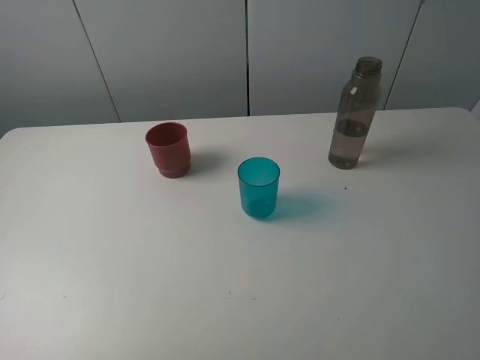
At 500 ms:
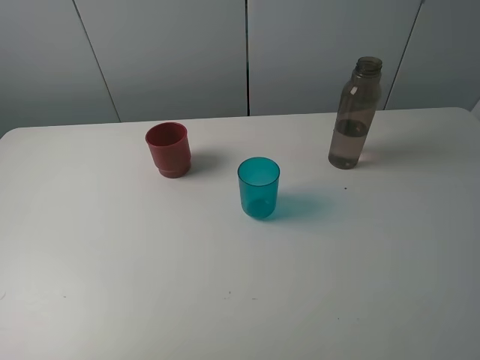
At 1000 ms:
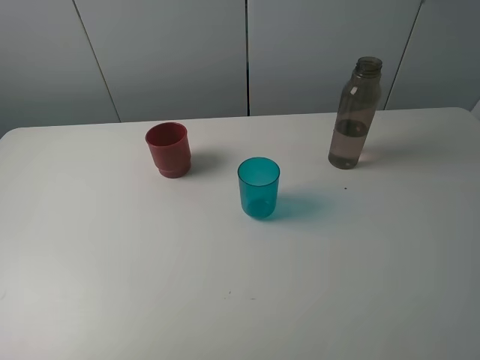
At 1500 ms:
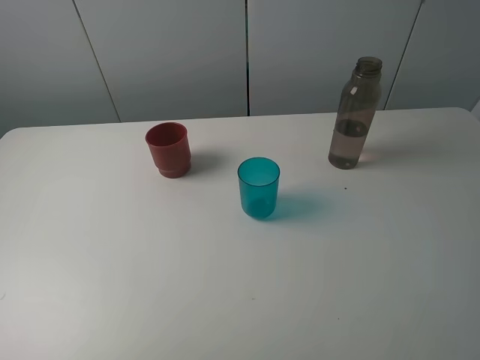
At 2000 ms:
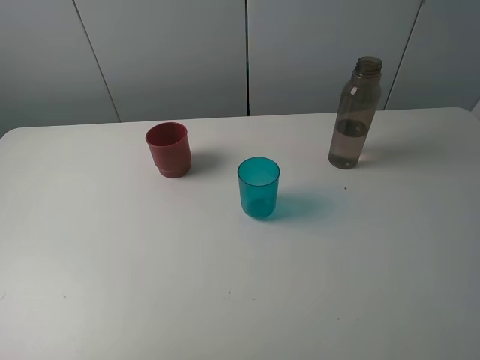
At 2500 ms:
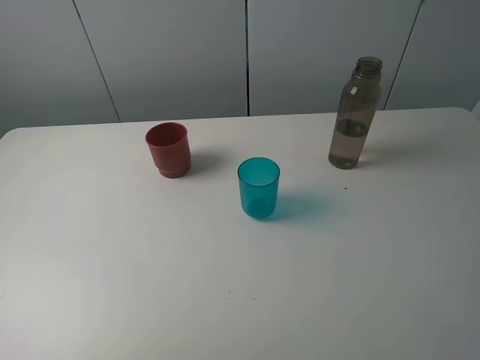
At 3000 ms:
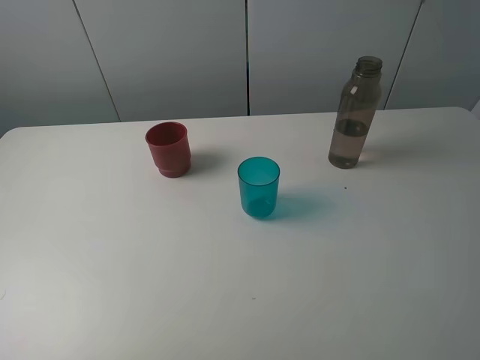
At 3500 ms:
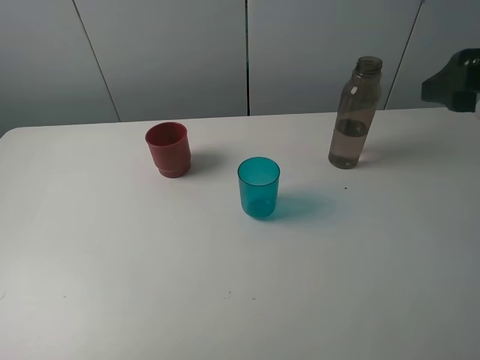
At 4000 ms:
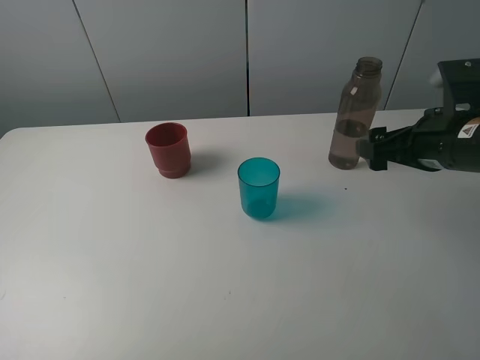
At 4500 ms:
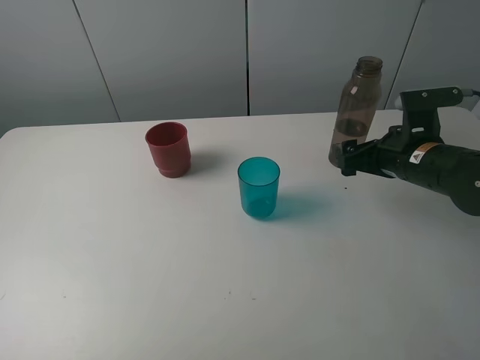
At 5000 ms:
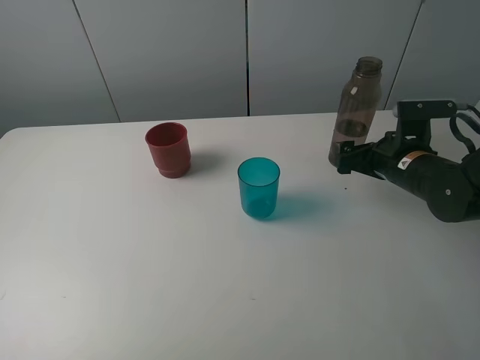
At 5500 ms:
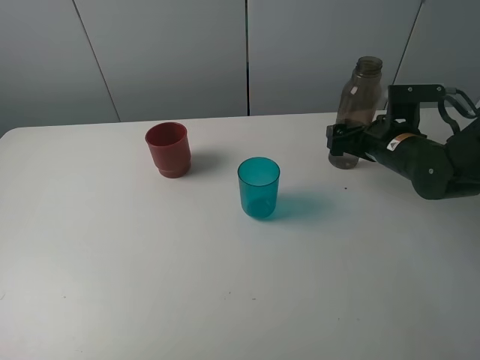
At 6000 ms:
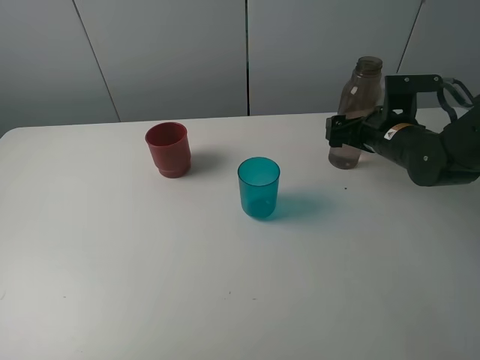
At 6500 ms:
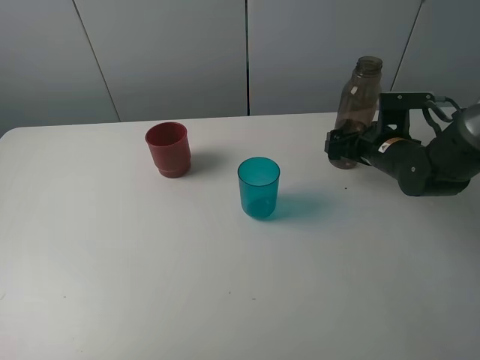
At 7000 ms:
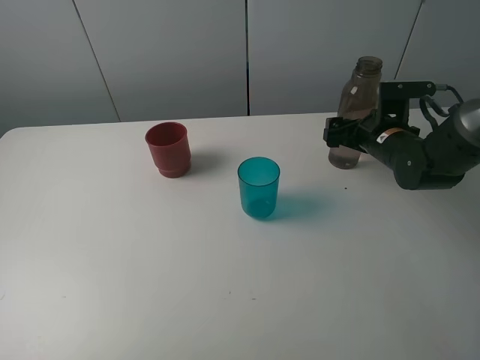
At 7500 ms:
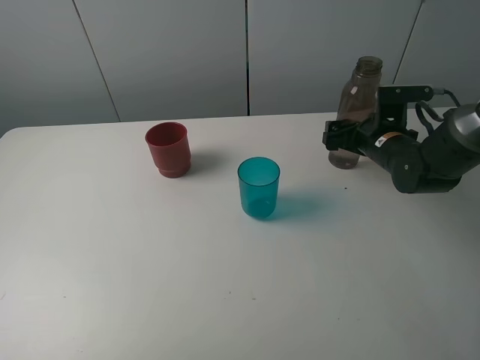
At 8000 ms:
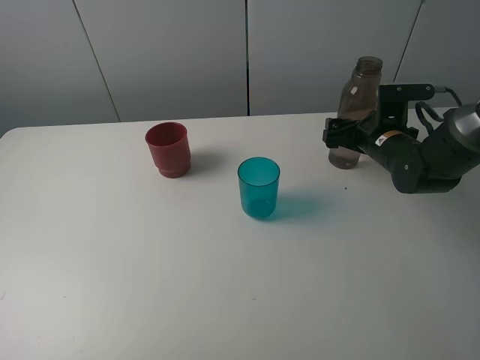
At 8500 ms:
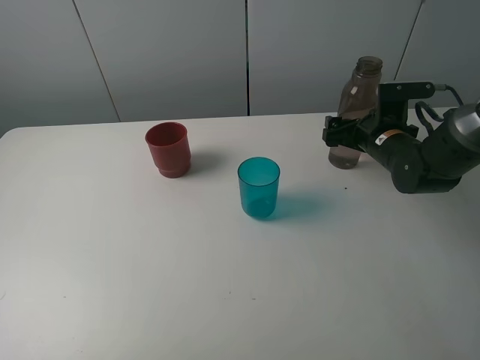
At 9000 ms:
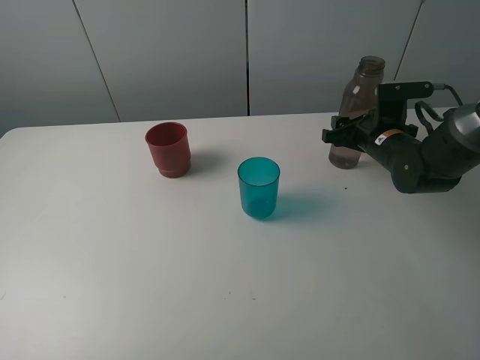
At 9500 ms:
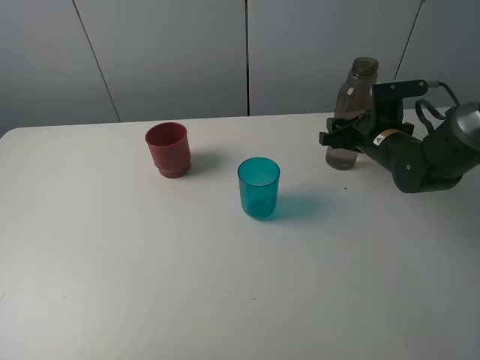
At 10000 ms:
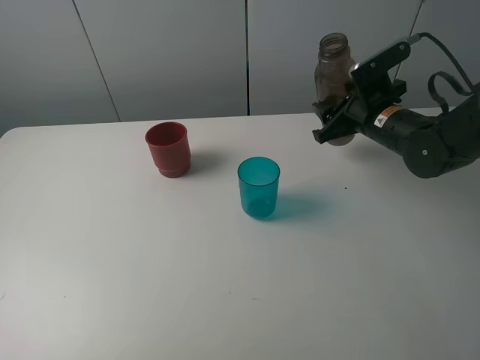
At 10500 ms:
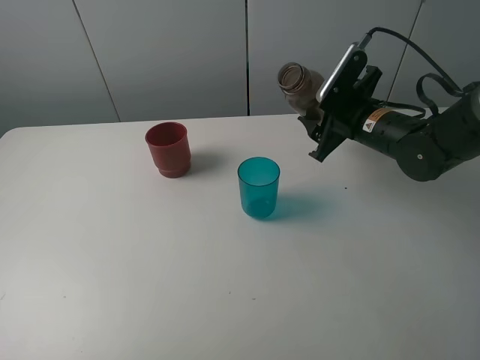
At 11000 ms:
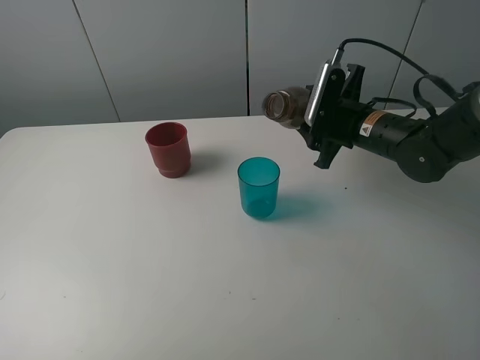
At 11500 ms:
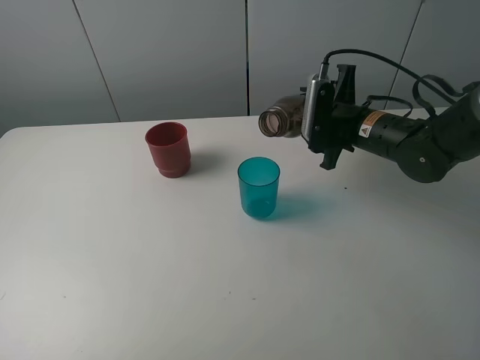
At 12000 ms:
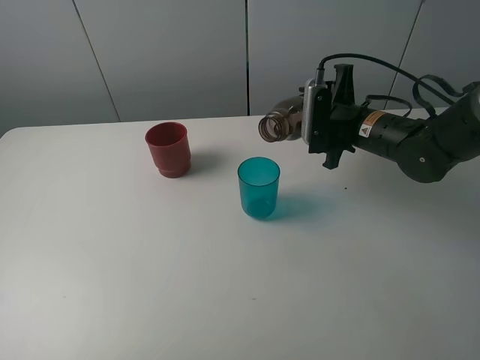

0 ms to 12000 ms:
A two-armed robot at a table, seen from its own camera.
Task of the whole recording: pick up the bottle and pour water into the cup, then pick up the cup containing water and pour it into another cup.
Step, 0 ms to 8500 ms: Grasp the brown bottle with the right gripper.
0 ms to 2000 ms: Both grippers stay put.
2000 ms to 4000 ms: The right gripper moves forward and downward, some 25 cm.
4000 ms to 6000 ms: The right gripper shifts about 10 cm forward and downward.
6000 ms to 8000 ms: There are only small adjustments of the grippers.
8000 ms to 10000 ms: The right gripper shifts by about 5 cm, and closes up.

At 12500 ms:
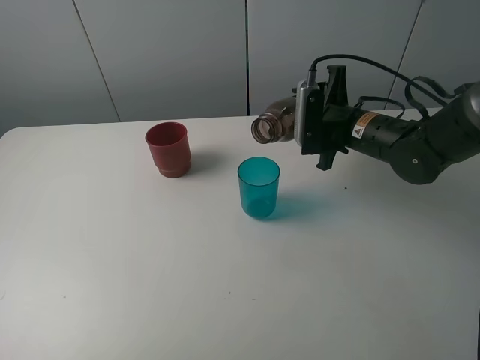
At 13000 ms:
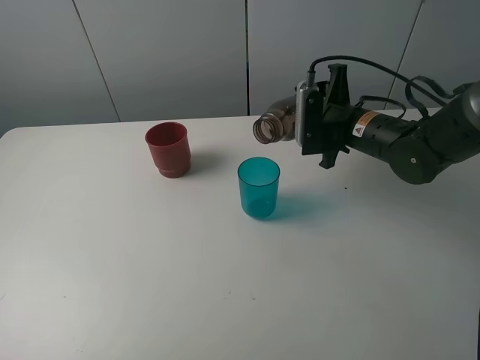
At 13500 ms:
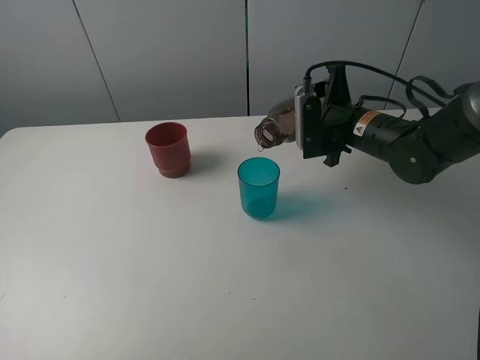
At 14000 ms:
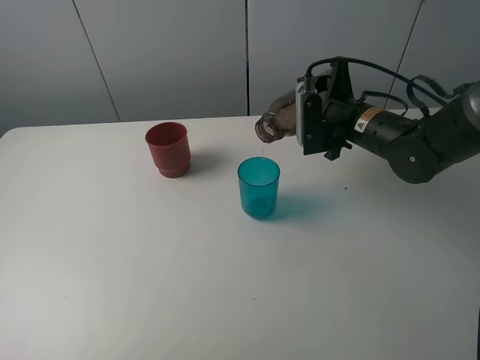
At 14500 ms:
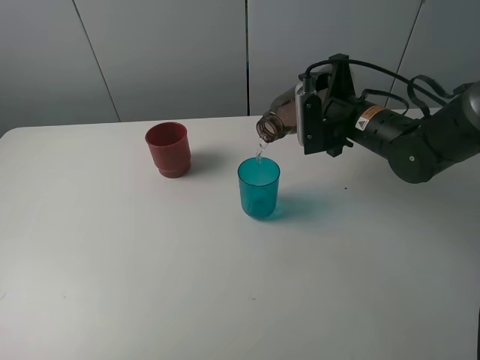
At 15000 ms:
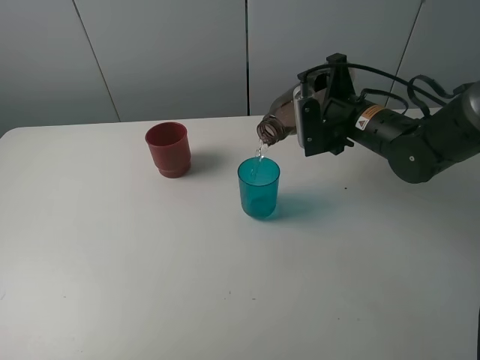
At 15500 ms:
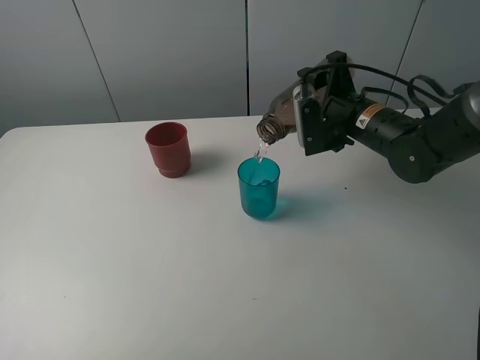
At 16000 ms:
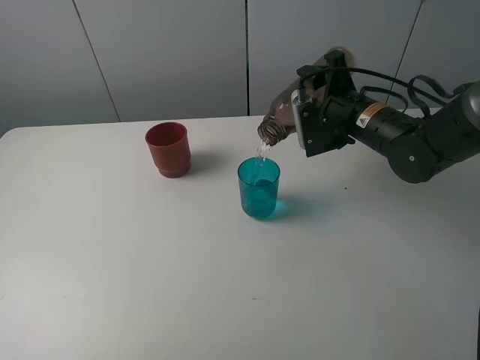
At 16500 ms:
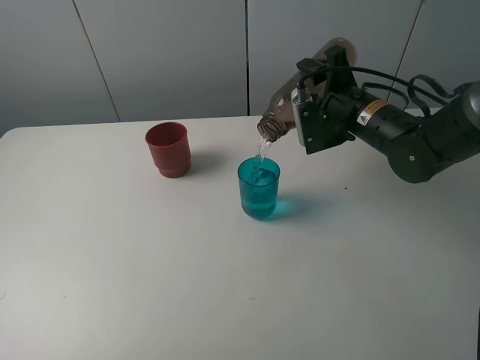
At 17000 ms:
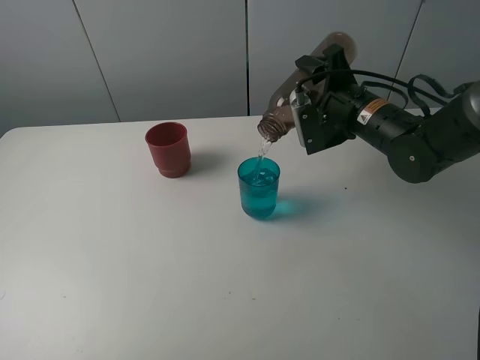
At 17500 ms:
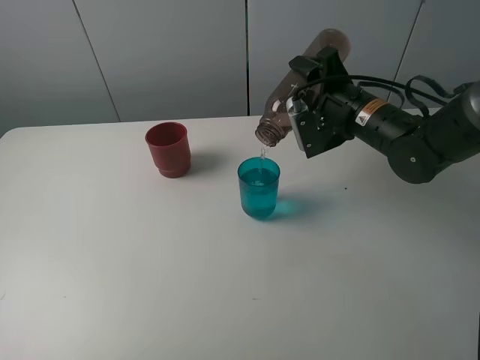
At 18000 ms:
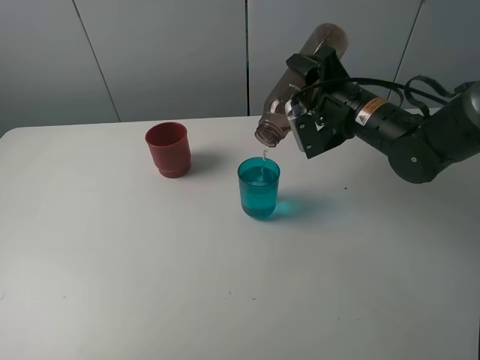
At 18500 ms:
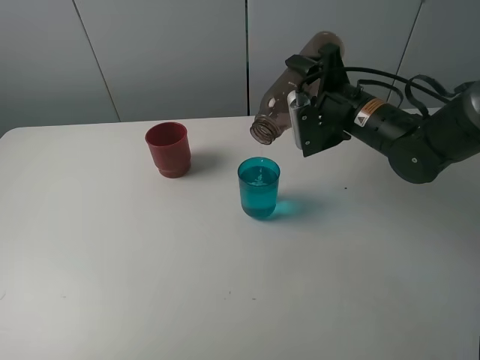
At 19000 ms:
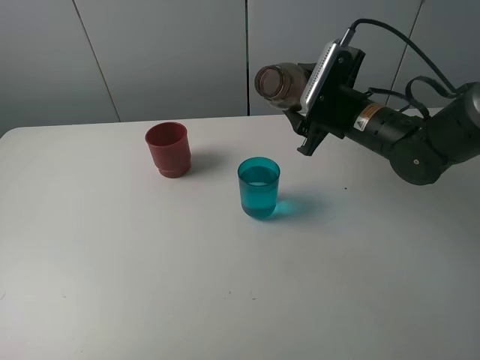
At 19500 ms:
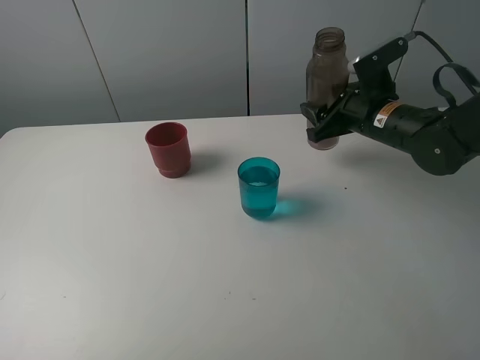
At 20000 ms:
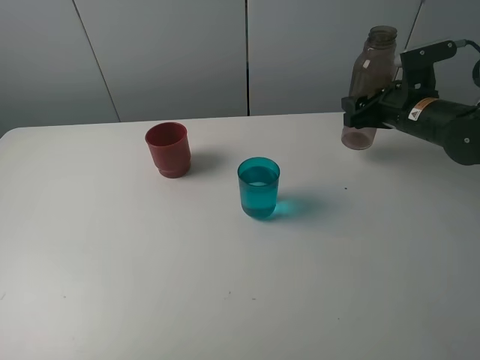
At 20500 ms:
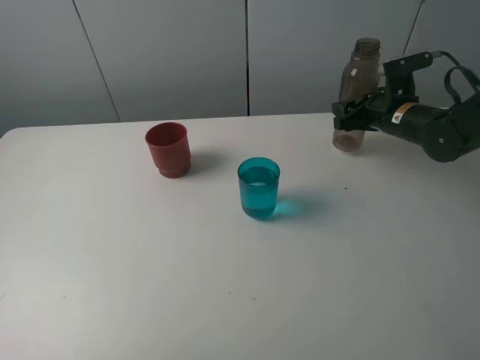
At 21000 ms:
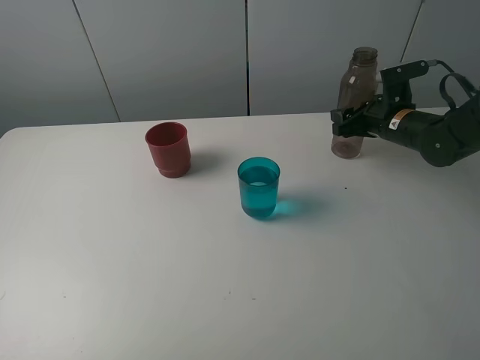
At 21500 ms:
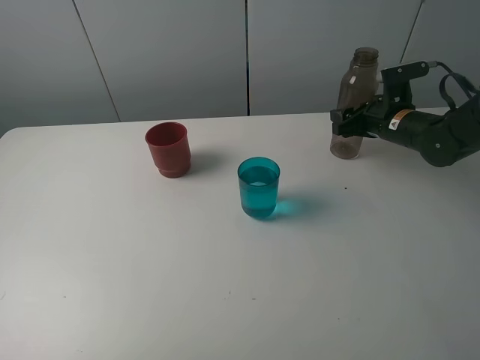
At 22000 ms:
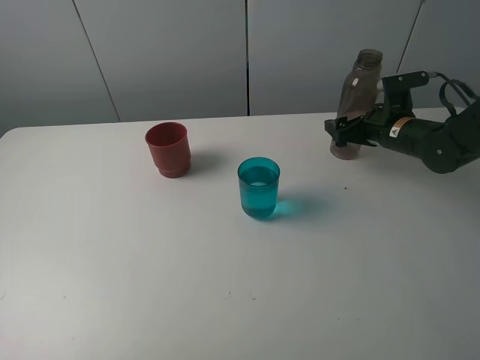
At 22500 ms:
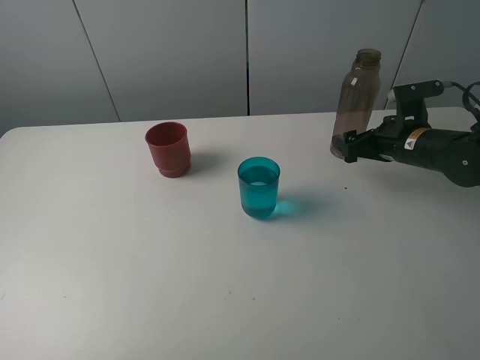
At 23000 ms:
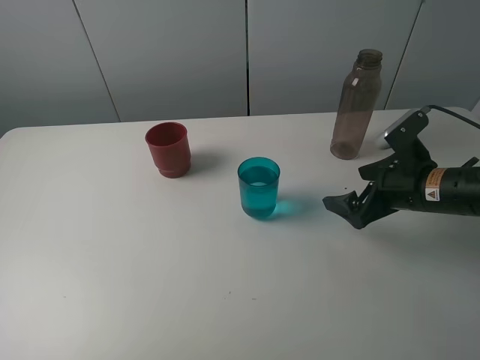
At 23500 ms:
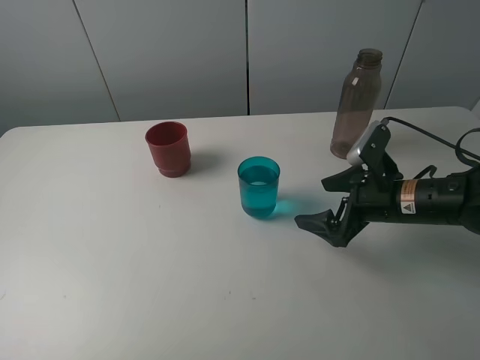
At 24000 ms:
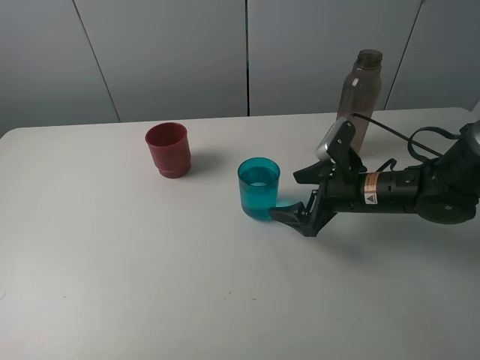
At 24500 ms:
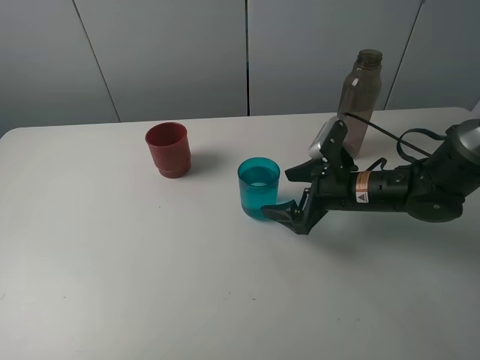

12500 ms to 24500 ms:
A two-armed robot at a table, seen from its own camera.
Task of the whole recording: pick up the bottle and pour water into the cup, then pick up the cup containing water and pour it into another cup.
Step, 12500 ms to 18500 ms: Pour water from brown bottle to blue cup with the right gripper.
Step, 19000 ms to 22000 ms: Place the brown bottle with the right gripper.
12500 ms to 14500 ms: The grippers stay close to where they were, moving slightly.
14500 ms to 16500 ms: The grippers make only small movements.
16500 ms to 18500 ms: The grippers make only small movements.
18500 ms to 20500 ms: The right gripper heads to the right and forward, covering about 10 cm.
20500 ms to 22500 ms: The right gripper shifts approximately 5 cm backward, and opens.
22500 ms to 24500 ms: The right gripper shifts some 10 cm to the left.

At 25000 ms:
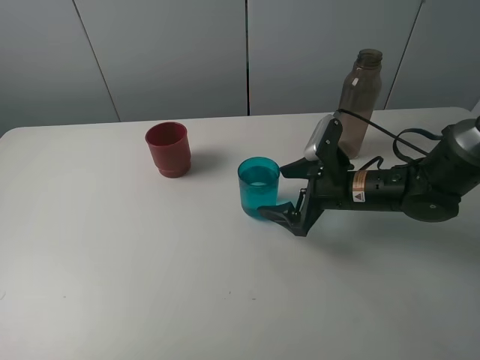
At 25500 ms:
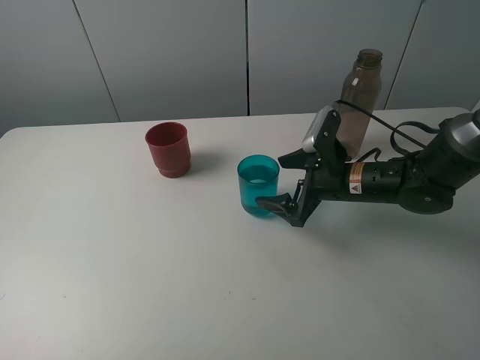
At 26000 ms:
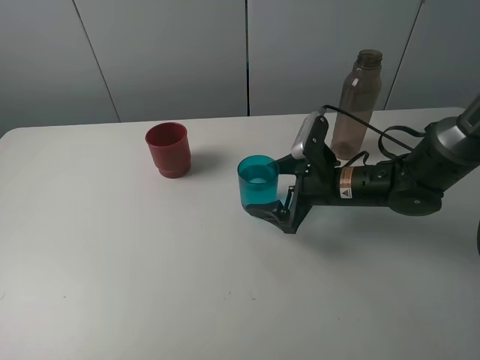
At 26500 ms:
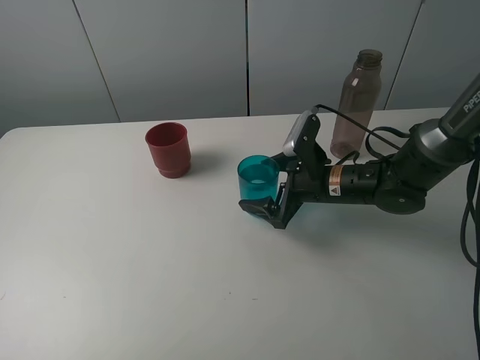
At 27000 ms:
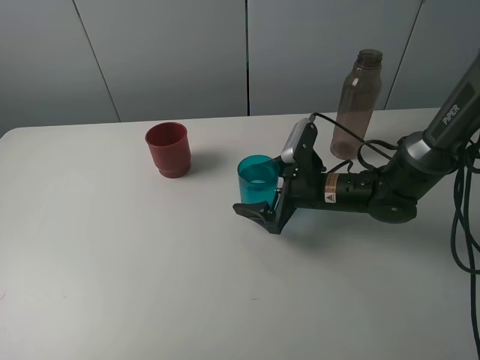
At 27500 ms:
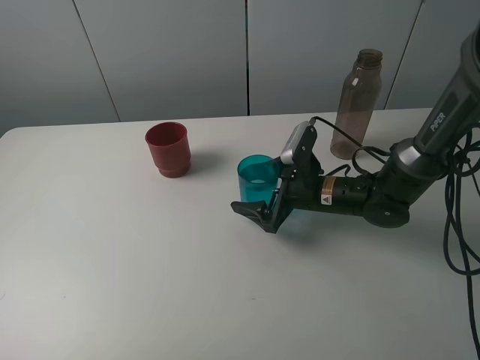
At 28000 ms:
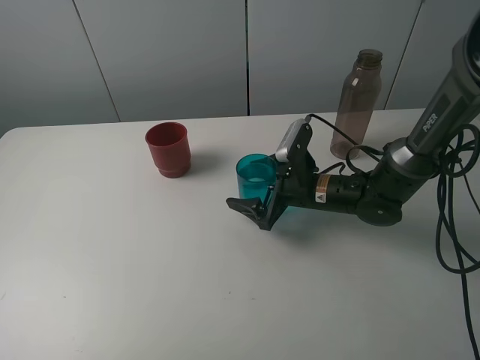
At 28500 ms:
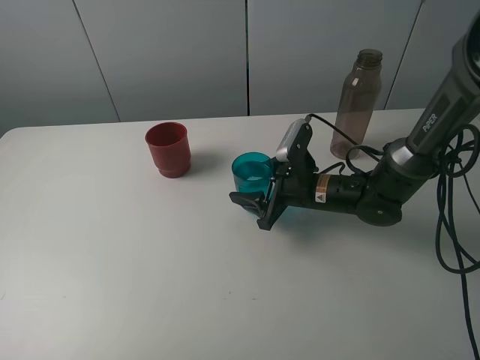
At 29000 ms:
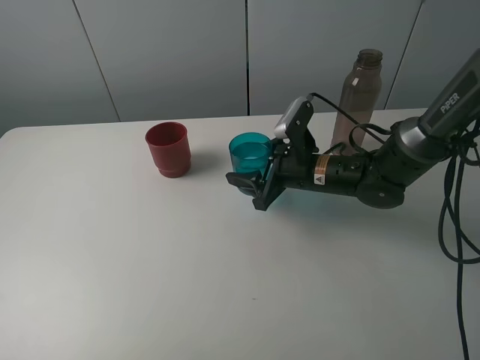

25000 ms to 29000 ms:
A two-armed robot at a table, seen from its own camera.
Task of the whole recording: pick up the bottle and pour water into the cup, then pick up the cup containing water and pour it into another cup.
Step, 25000 ms to 28000 ms: Grasp the blue cup with the right gripper.
25000 ms to 27000 ms: The grippers make only small movements.
27000 ms to 29000 ms: The right gripper closes up.
